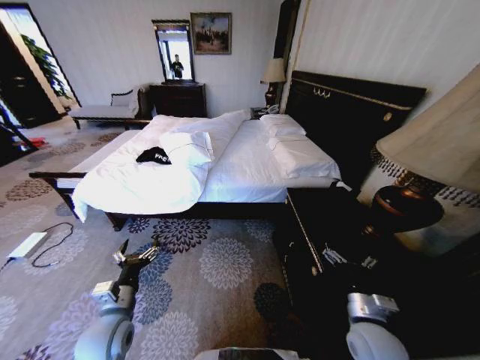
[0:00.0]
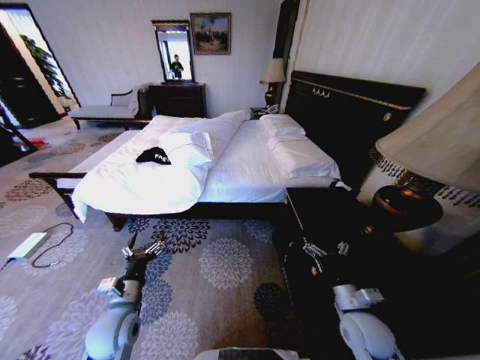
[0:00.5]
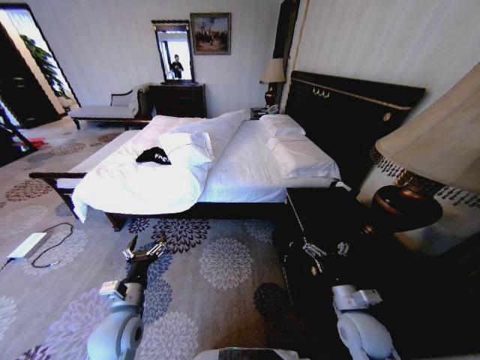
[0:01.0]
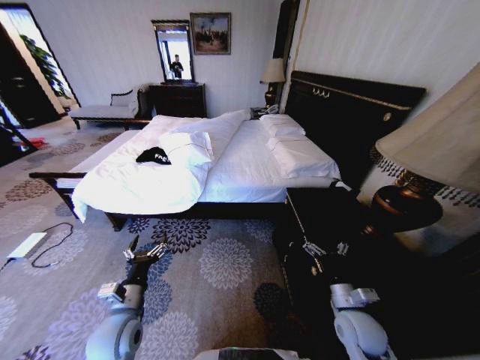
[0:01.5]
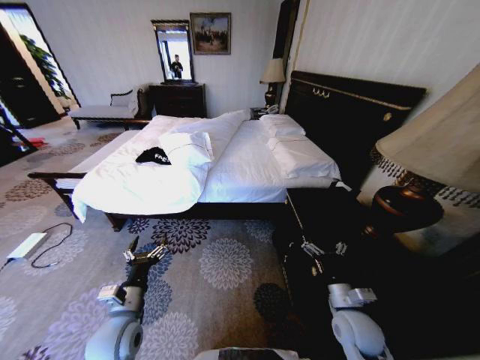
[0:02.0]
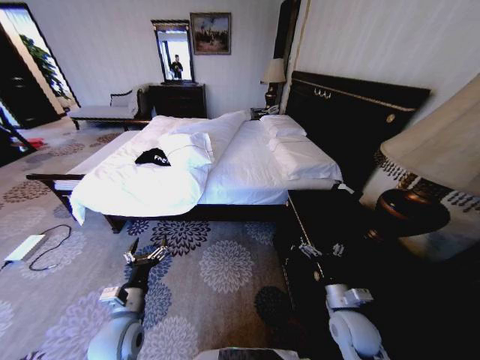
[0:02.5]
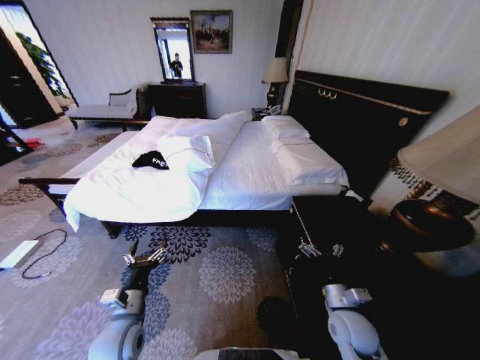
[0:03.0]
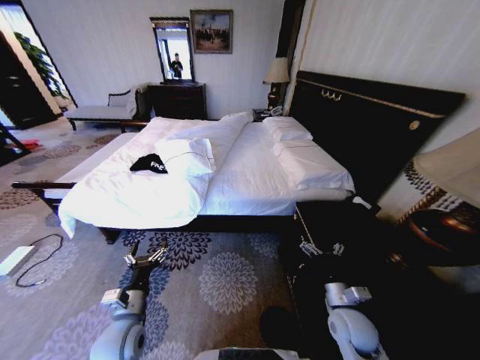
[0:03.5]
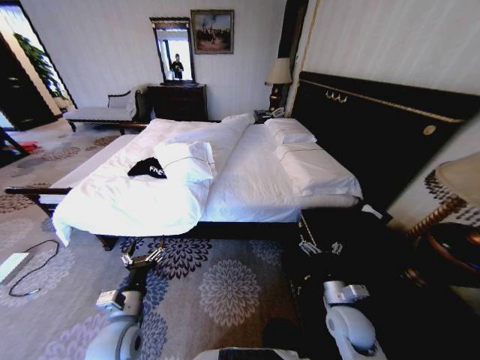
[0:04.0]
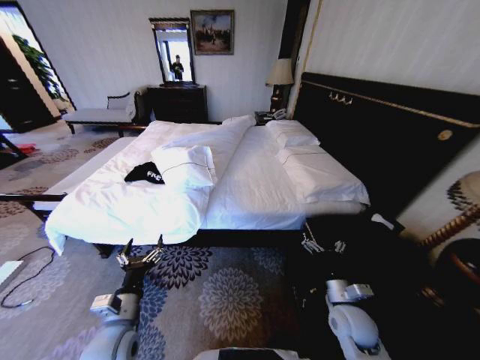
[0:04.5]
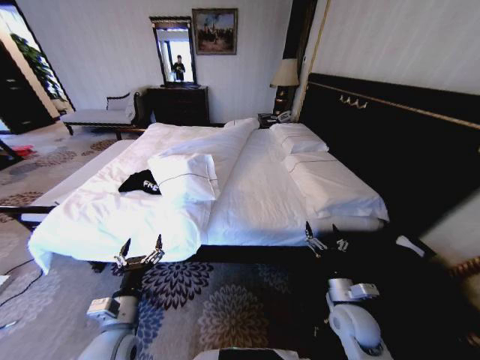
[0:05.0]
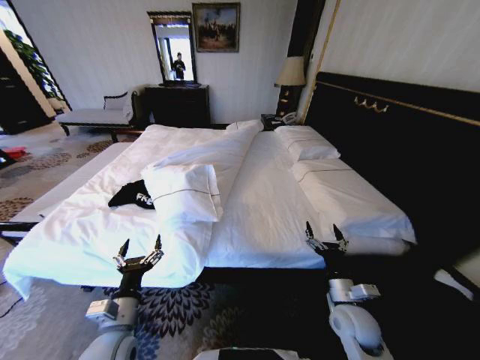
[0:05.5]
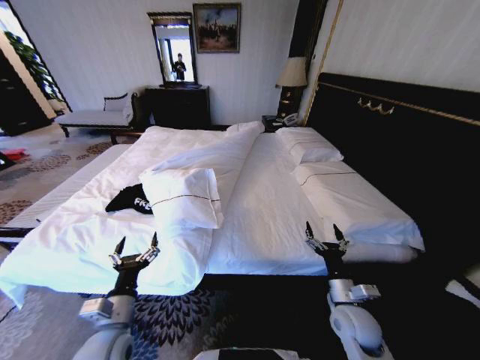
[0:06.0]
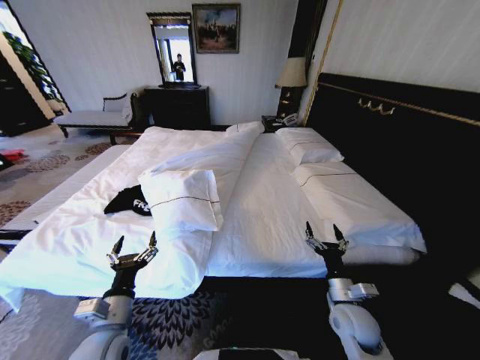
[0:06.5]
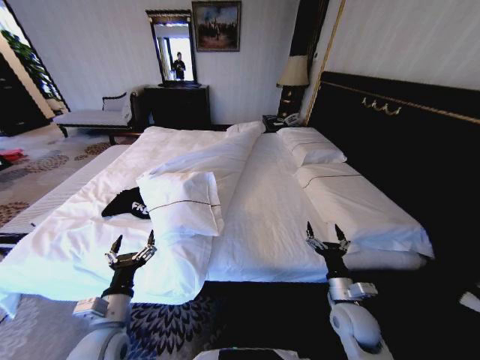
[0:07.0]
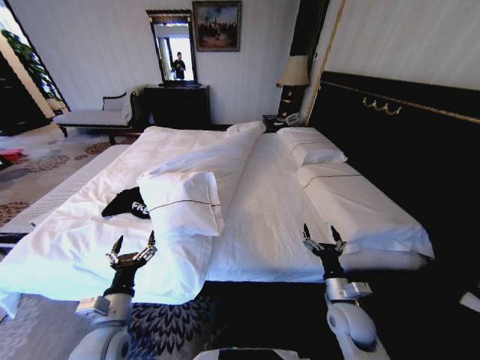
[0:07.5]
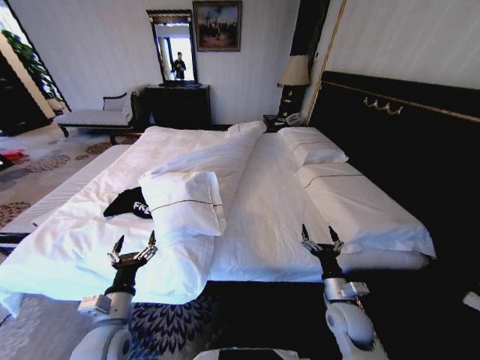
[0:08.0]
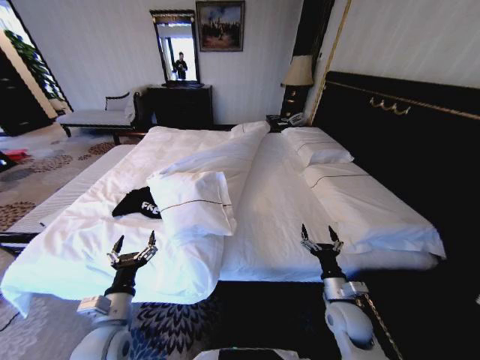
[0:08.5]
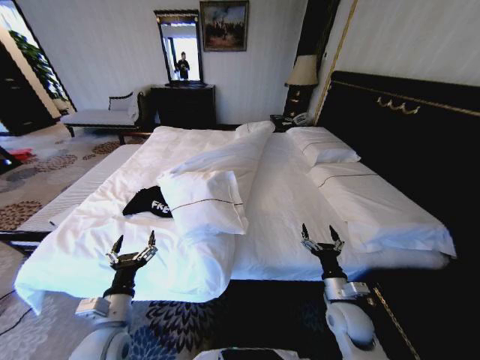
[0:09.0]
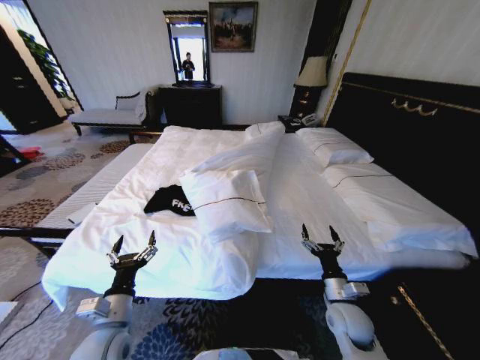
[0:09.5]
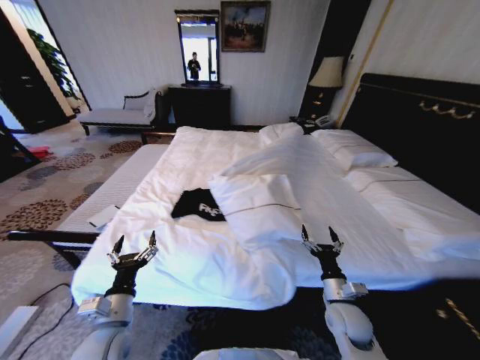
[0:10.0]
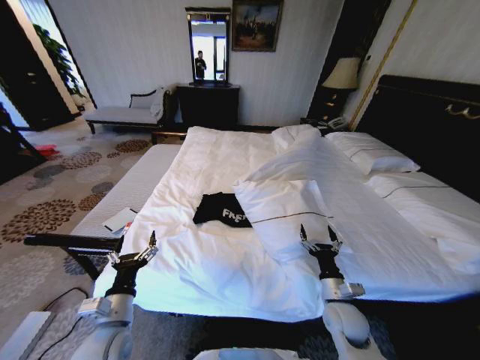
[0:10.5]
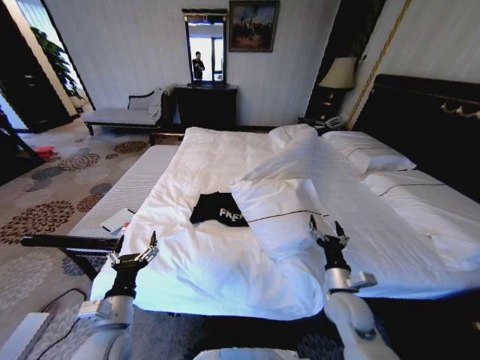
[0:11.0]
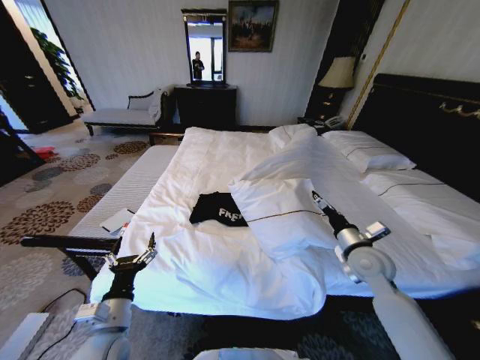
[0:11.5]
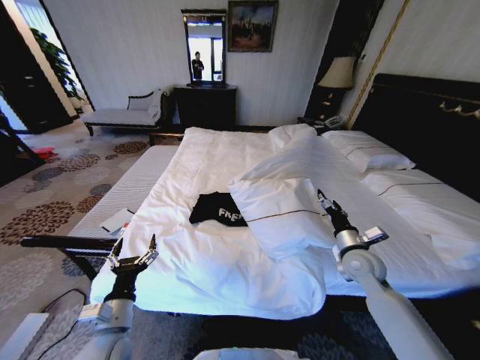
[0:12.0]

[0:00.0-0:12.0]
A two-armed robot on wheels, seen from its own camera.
Task of the whole recording: Fold the clothes on the bed.
0:06.0 to 0:08.0: The grippers move only a little.
0:10.0 to 0:12.0: The right gripper goes about 15 cm forward, upward and to the right.

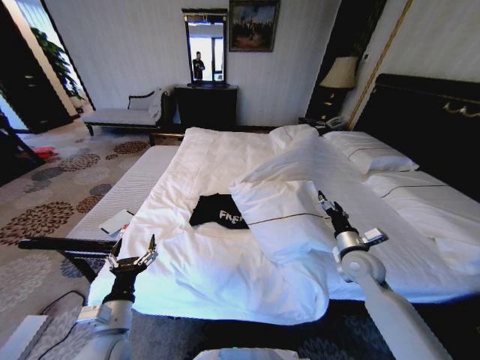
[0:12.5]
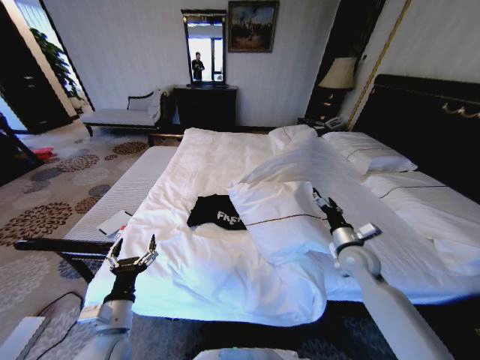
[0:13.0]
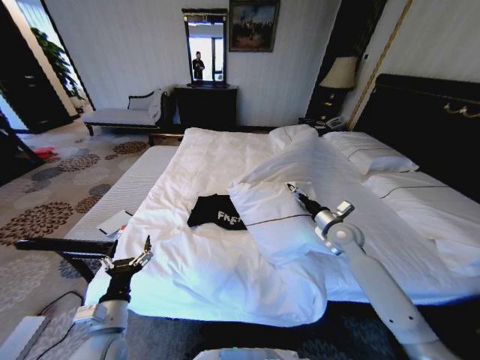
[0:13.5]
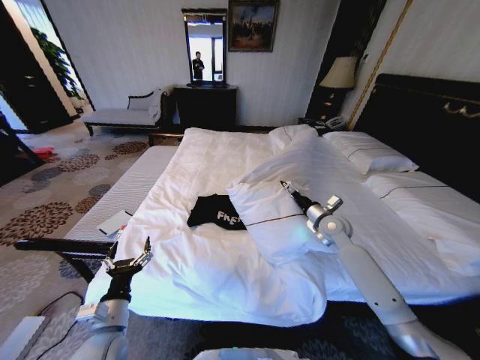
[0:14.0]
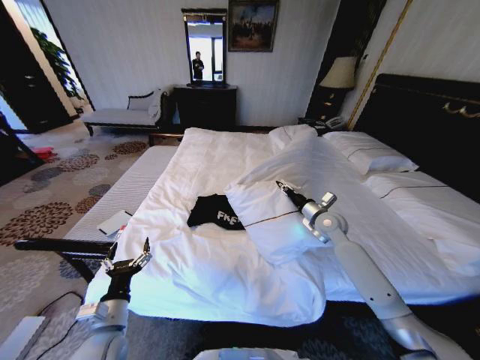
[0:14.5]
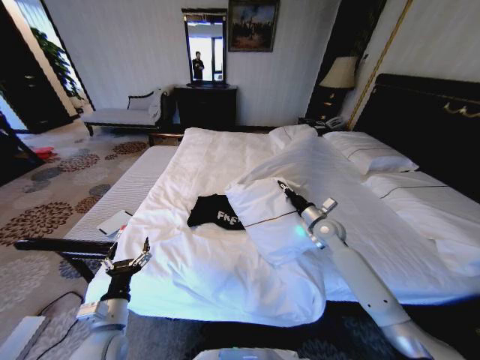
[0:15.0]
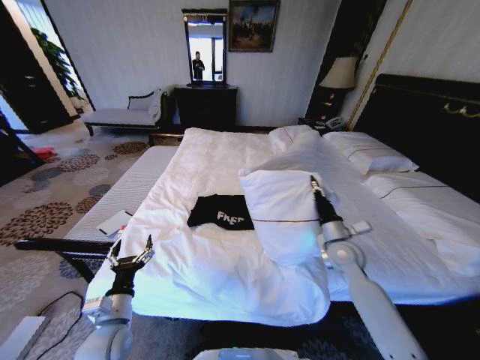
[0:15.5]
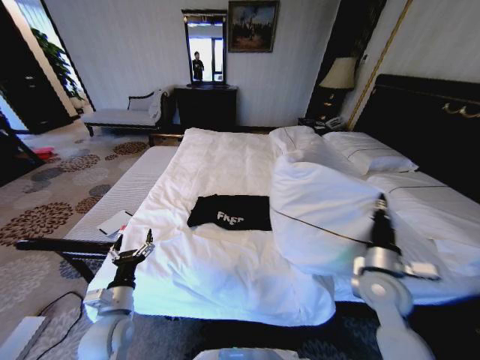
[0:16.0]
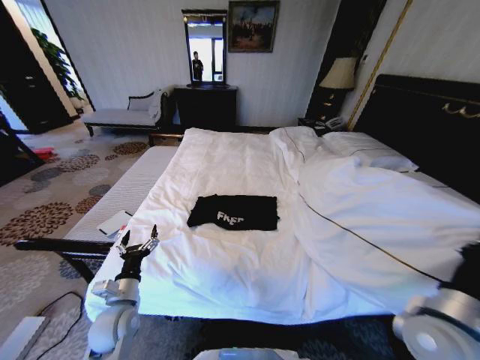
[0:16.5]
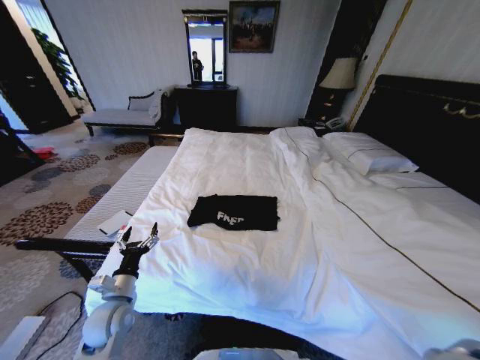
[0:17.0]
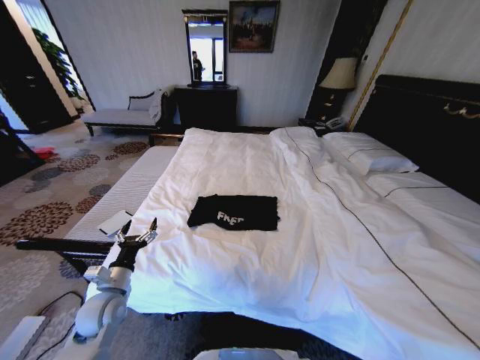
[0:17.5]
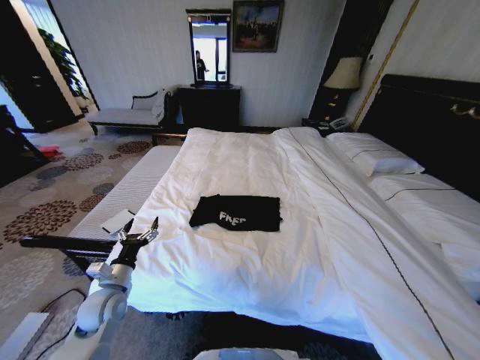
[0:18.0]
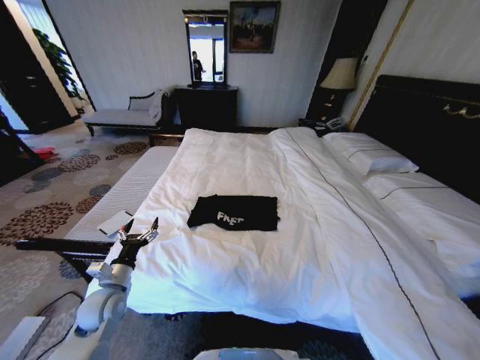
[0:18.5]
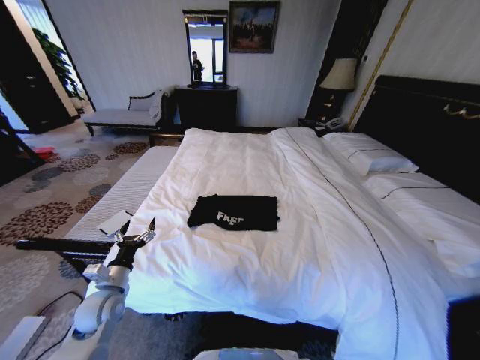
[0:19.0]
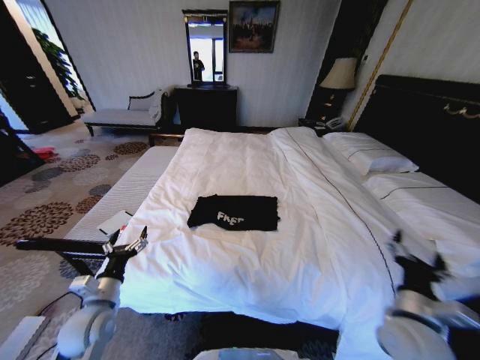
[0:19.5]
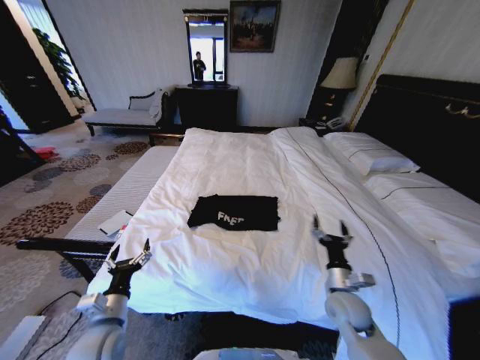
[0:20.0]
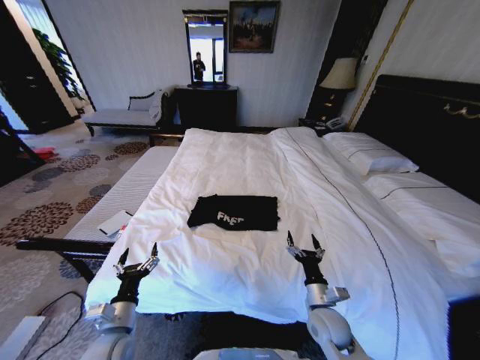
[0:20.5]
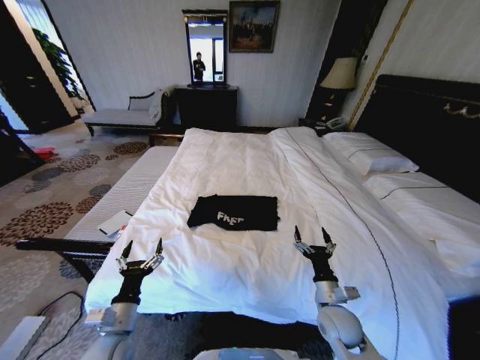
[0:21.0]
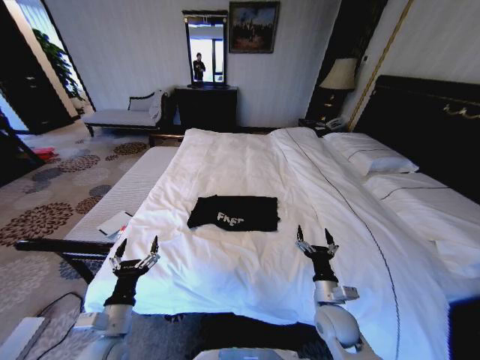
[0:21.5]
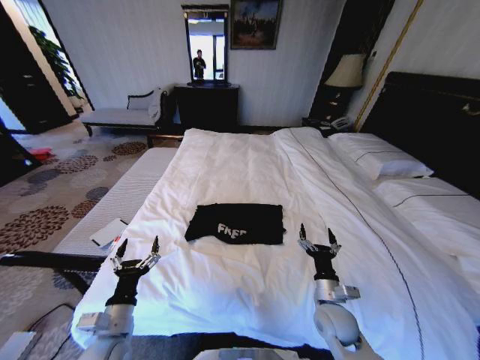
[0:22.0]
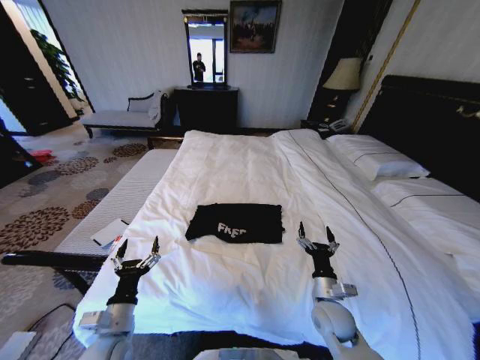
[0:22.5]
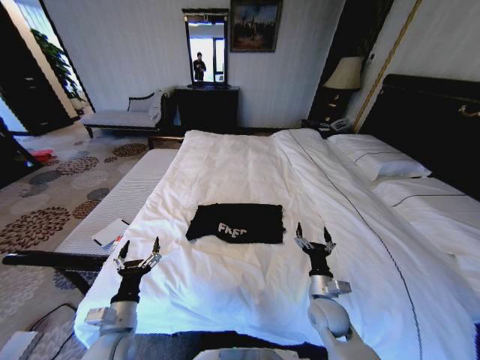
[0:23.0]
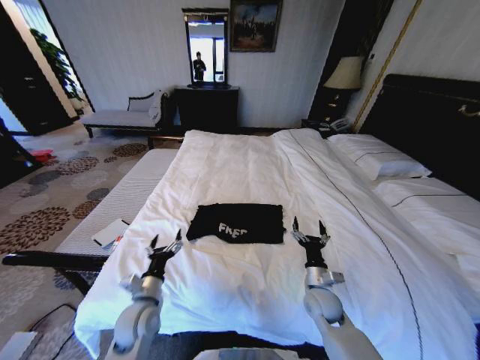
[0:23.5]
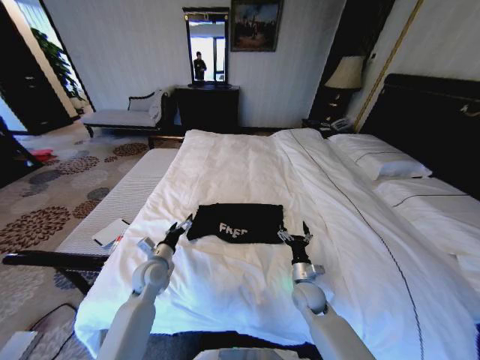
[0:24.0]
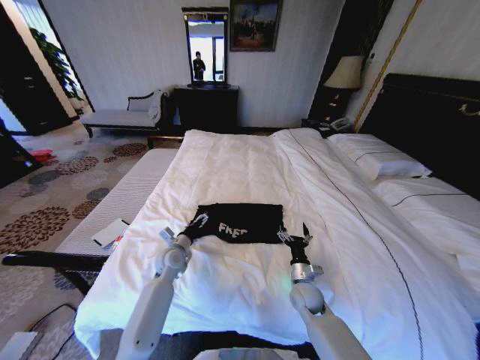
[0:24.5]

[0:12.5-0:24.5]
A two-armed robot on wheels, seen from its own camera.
Task of the whole recording: Fold the clothes on the bed.
0:12.5 to 0:14.5: The right gripper shifts about 15 cm forward, and closes its fingers.
0:14.5 to 0:16.5: The left gripper is displaced forward by roughly 5 cm; the right gripper shifts about 30 cm backward, and closes.
0:16.5 to 0:18.5: The right gripper heads downward, backward and to the right, covering approximately 20 cm; the left gripper shifts by approximately 5 cm.
0:18.5 to 0:20.5: The right gripper goes approximately 25 cm to the left and forward, and opens up. Meanwhile the left gripper travels backward and to the right by some 10 cm.
0:22.5 to 0:24.5: The right gripper shifts some 10 cm forward and downward, while the left gripper shifts approximately 25 cm forward.

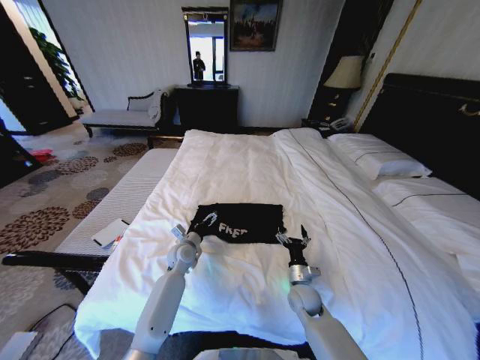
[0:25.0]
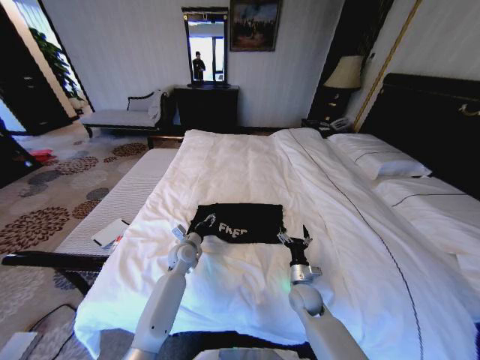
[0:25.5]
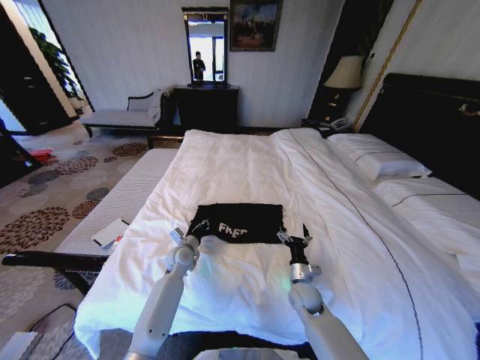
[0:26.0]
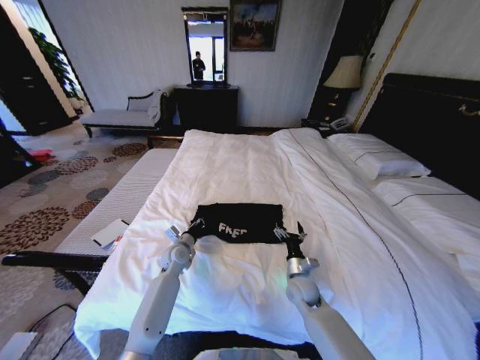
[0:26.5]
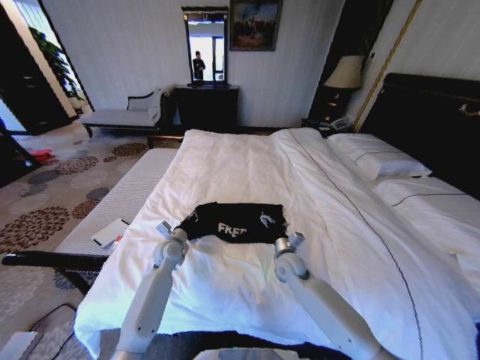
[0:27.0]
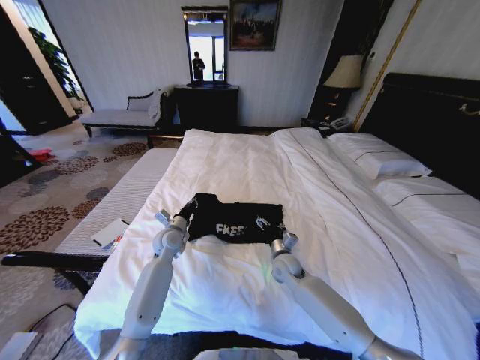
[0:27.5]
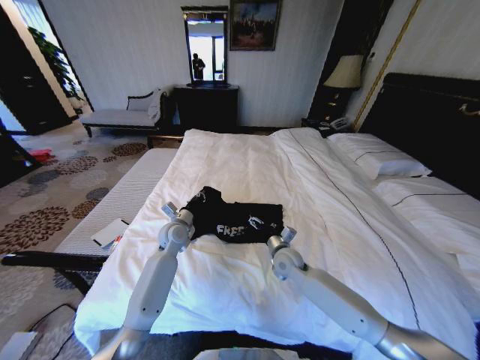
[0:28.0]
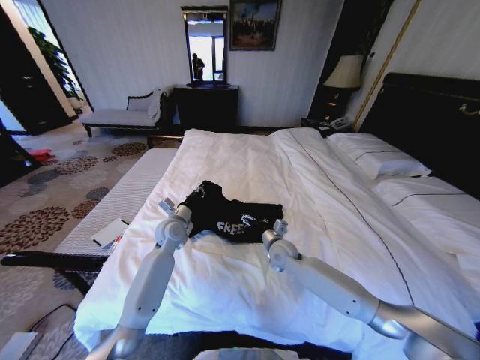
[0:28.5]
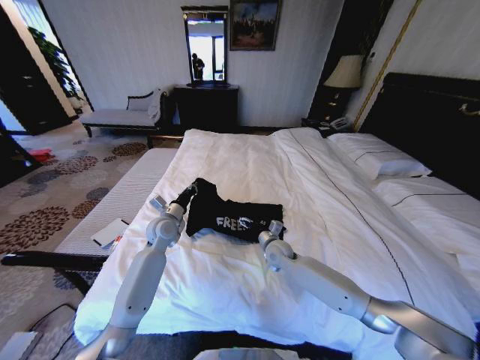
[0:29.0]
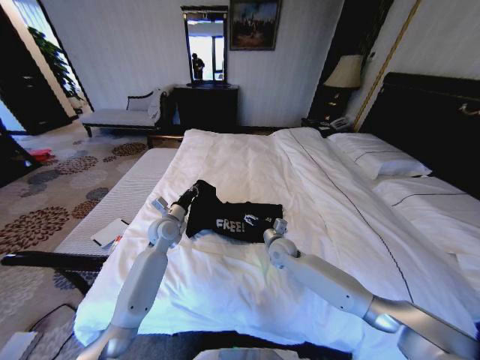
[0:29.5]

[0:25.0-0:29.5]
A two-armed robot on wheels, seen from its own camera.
Task of the whole recording: Fold the clothes on the bed.
0:25.0 to 0:27.0: The right gripper is displaced forward and upward by roughly 10 cm. Meanwhile the left gripper closes its fingers.
0:27.0 to 0:29.5: The right gripper is displaced forward by some 5 cm. The left gripper shifts some 10 cm upward.
